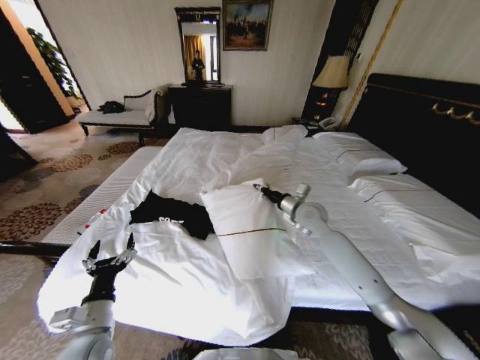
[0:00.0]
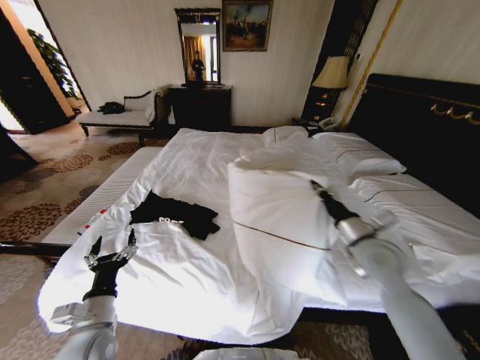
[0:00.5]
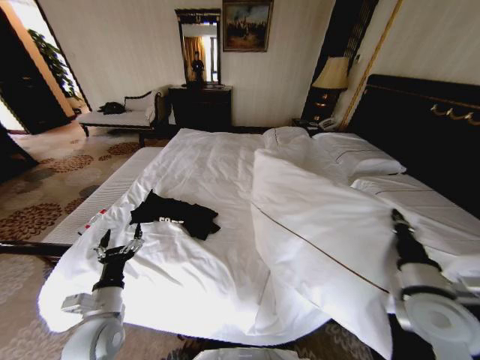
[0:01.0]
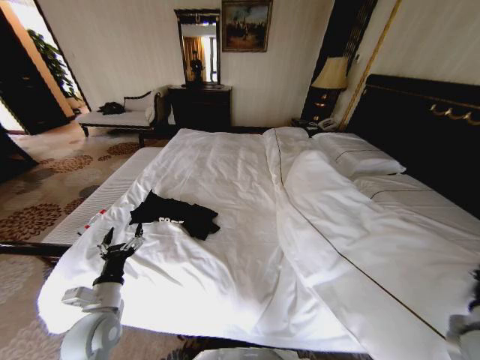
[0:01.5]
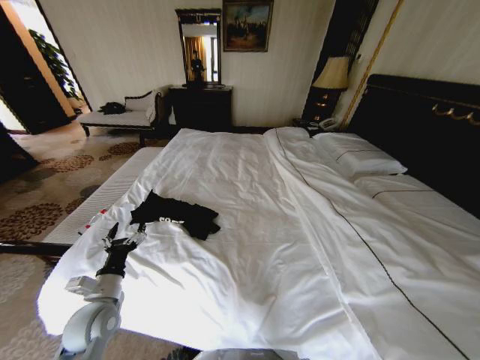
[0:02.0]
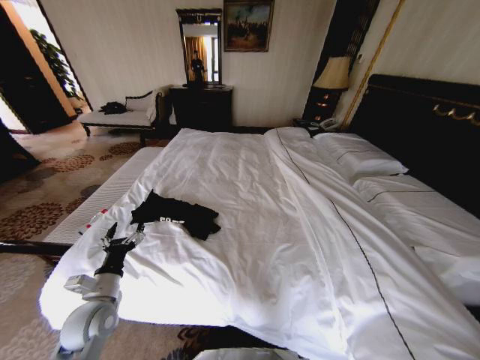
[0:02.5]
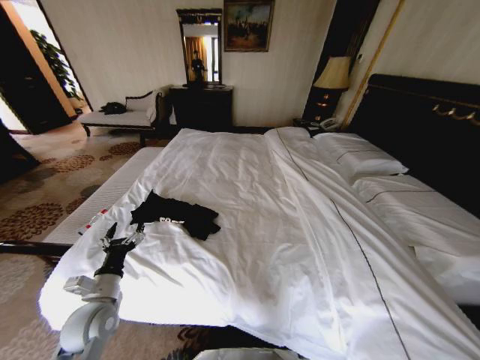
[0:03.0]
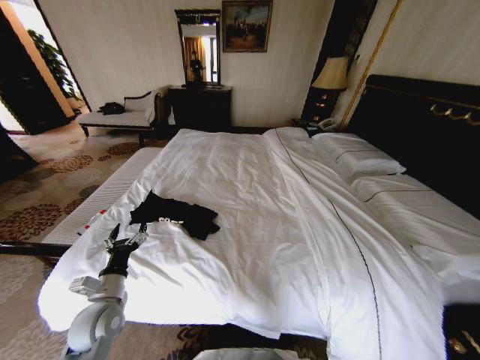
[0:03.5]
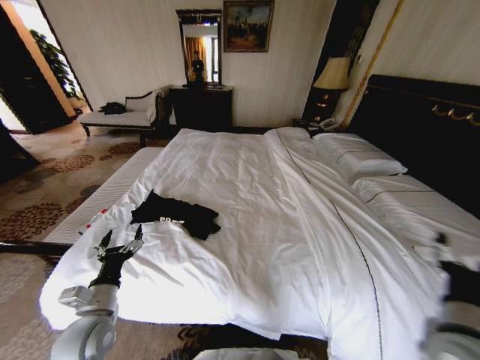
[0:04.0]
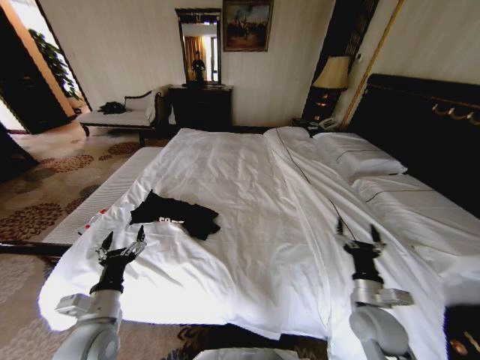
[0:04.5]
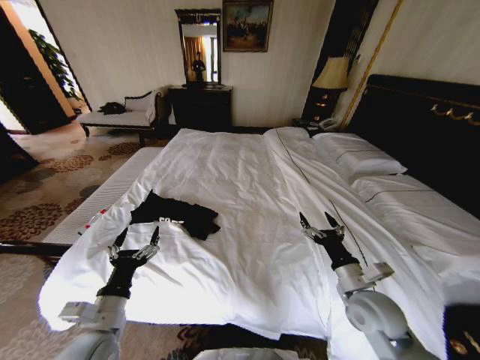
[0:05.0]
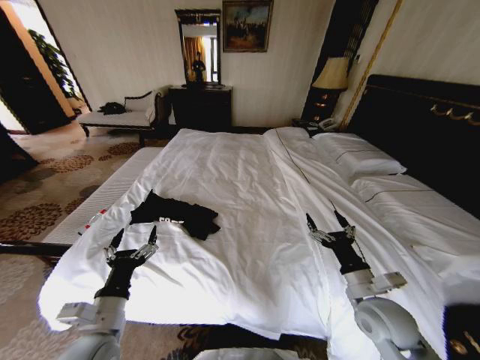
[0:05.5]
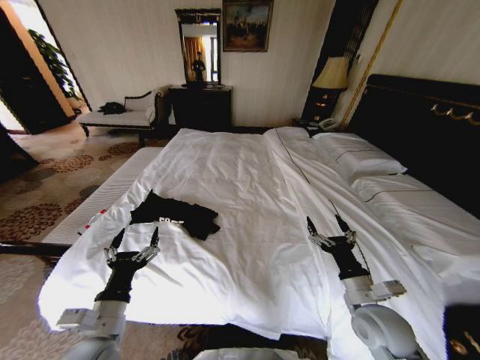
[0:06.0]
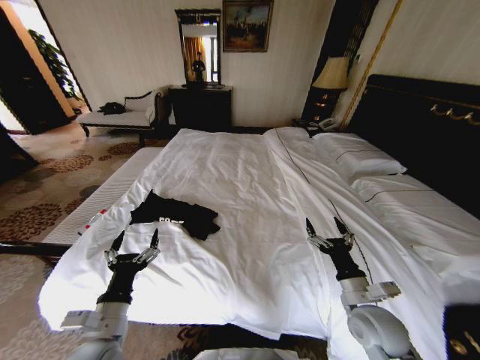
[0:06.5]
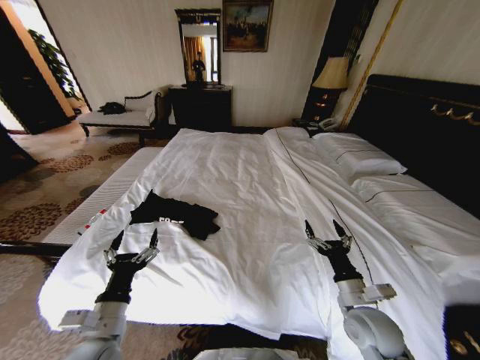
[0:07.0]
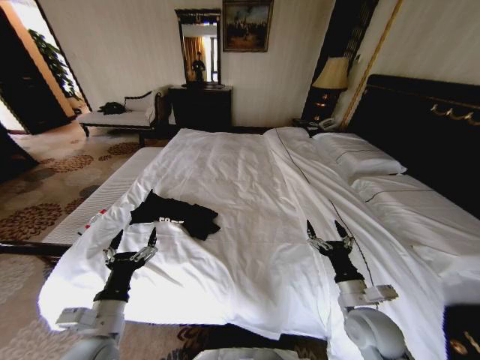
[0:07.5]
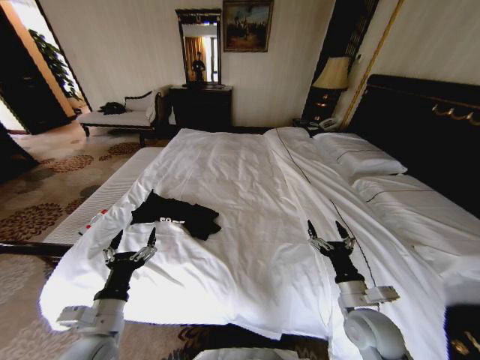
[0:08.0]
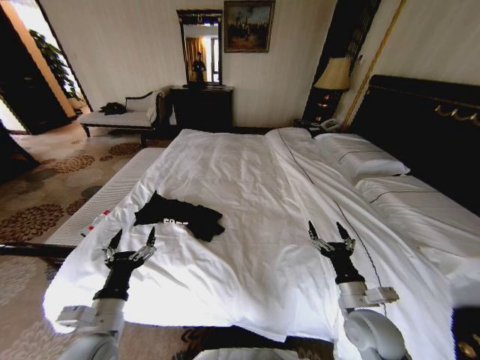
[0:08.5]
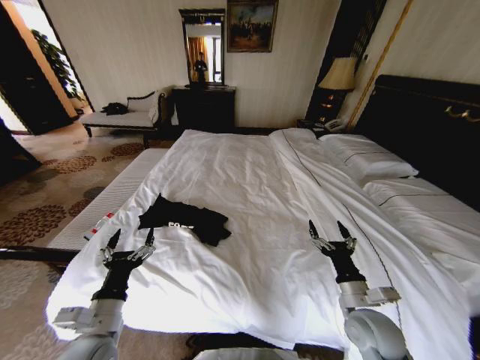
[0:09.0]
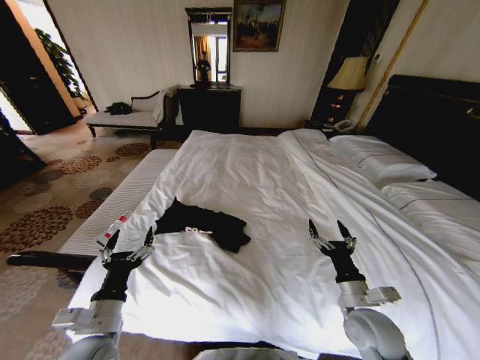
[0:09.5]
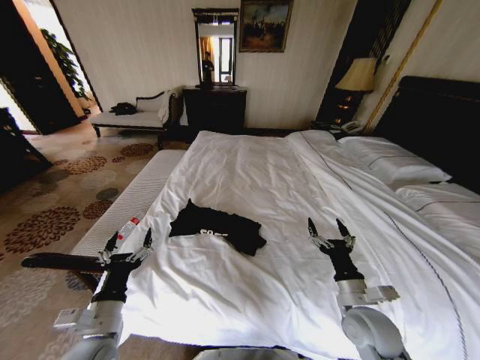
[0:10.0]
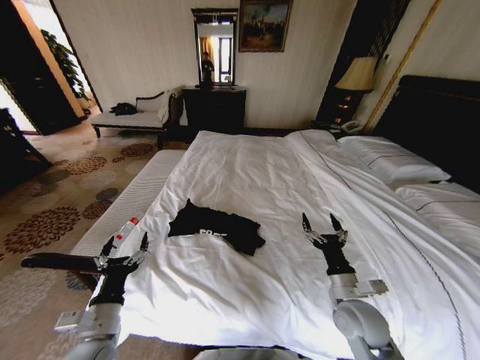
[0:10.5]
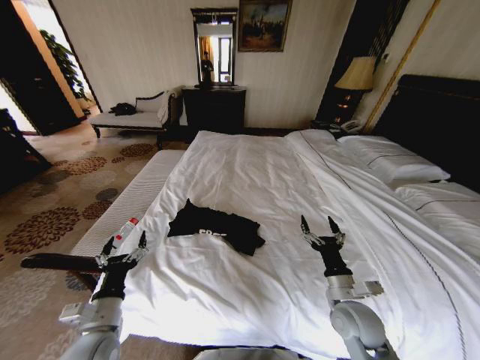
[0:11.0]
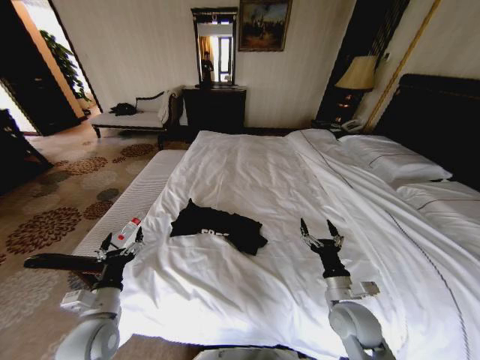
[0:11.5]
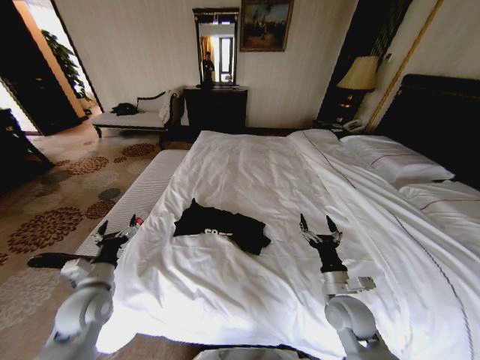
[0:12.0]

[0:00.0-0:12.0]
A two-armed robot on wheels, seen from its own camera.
Task of the whole recording: Fold the clothes on the bed.
0:00.0 to 0:02.0: The left gripper heads forward, covering approximately 5 cm. Meanwhile the right gripper is displaced backward and to the right by approximately 50 cm.
0:02.0 to 0:04.0: The right gripper moves to the left and forward, about 10 cm, and opens its fingers.
0:04.0 to 0:06.0: The right gripper goes about 10 cm downward, forward and to the left. The left gripper is displaced to the right by about 5 cm.
0:06.0 to 0:08.0: The grippers make only small movements.
0:10.0 to 0:12.0: The left gripper travels forward and to the left by about 10 cm.

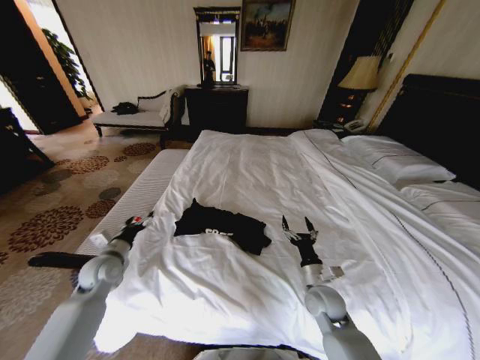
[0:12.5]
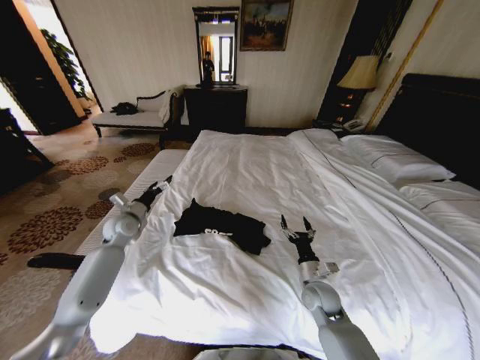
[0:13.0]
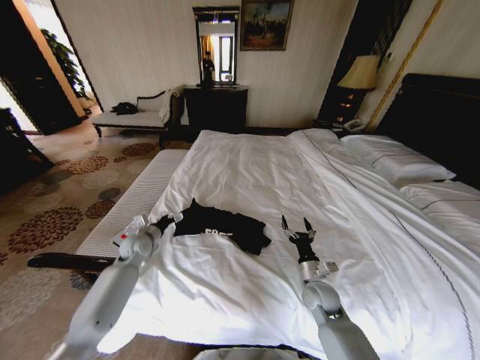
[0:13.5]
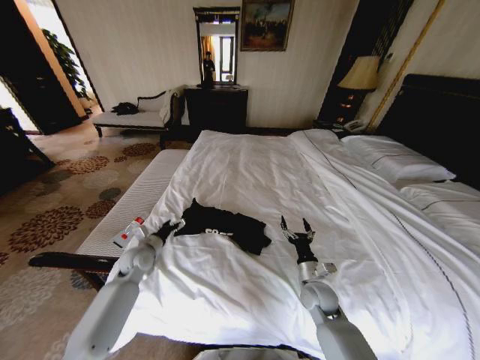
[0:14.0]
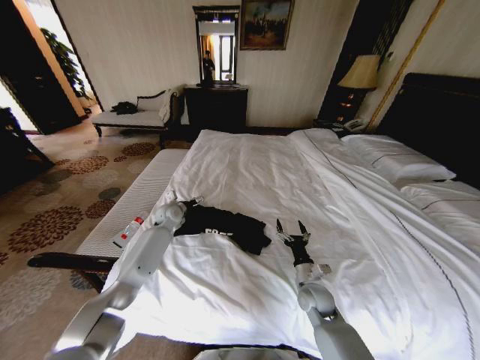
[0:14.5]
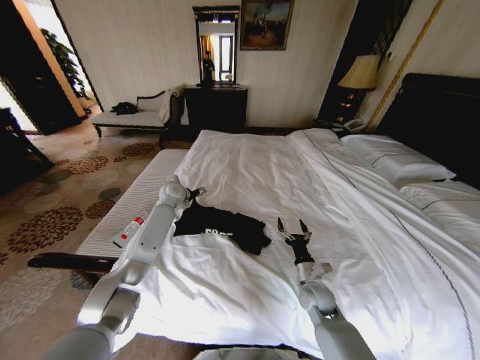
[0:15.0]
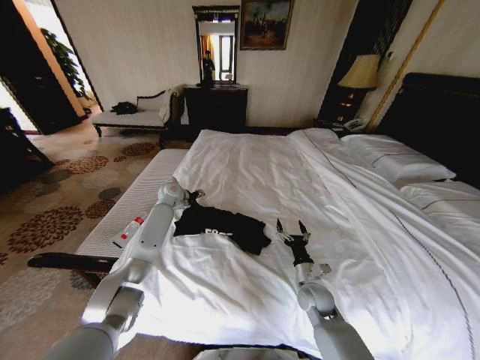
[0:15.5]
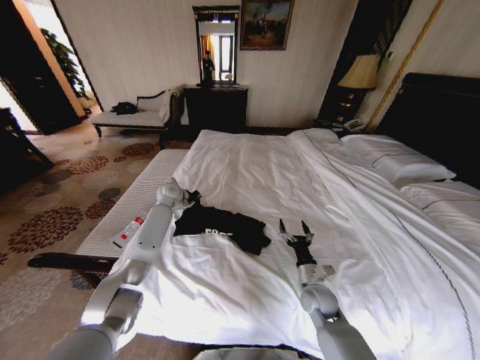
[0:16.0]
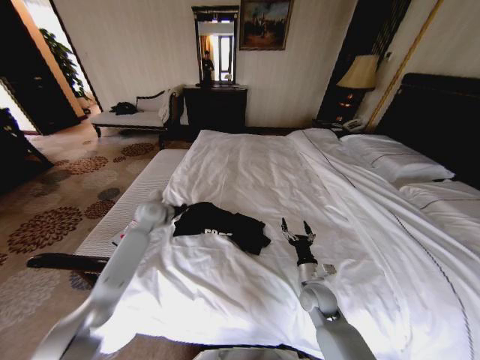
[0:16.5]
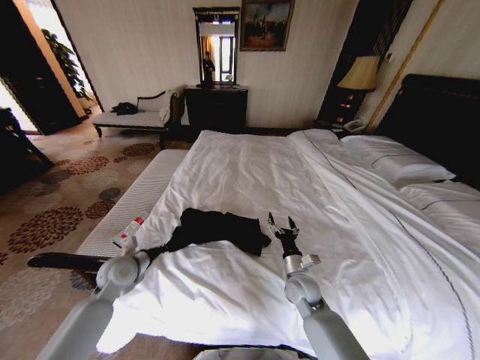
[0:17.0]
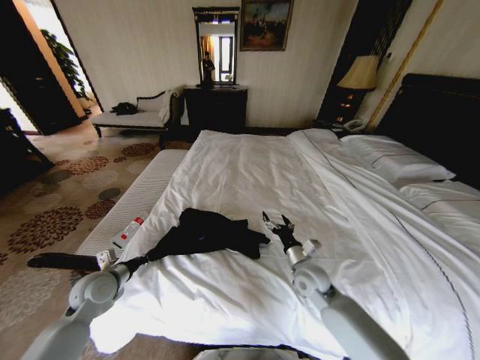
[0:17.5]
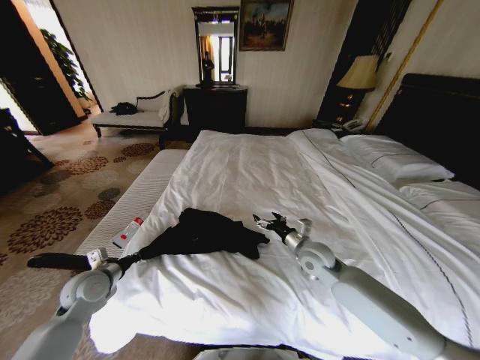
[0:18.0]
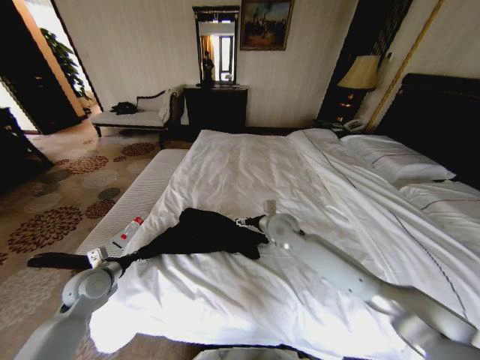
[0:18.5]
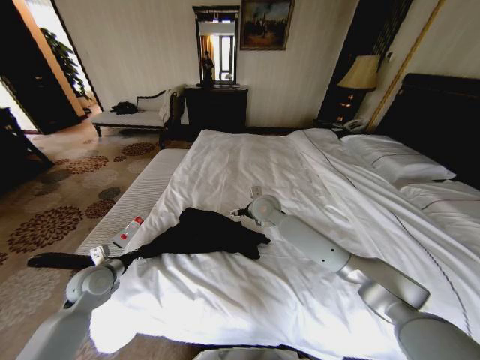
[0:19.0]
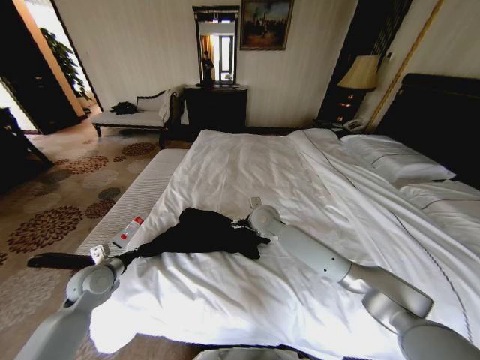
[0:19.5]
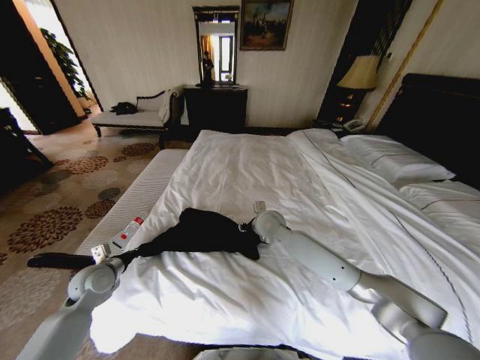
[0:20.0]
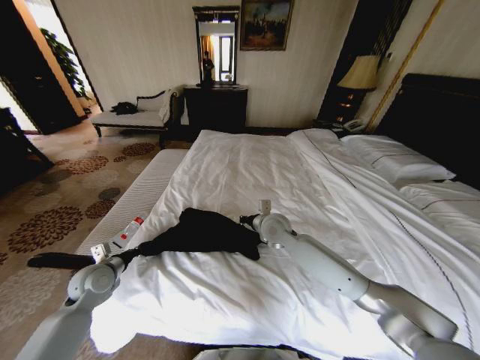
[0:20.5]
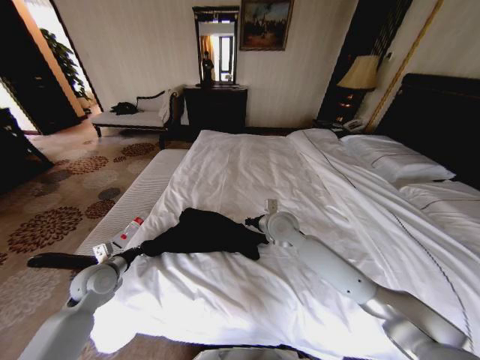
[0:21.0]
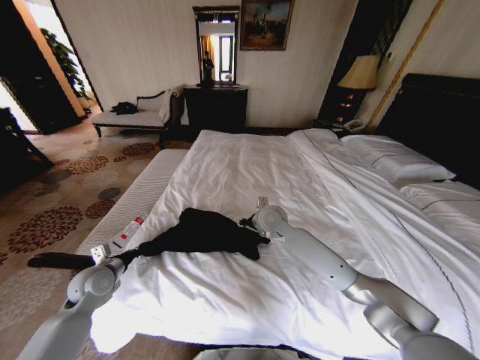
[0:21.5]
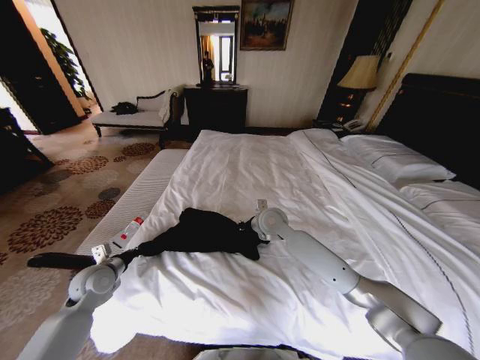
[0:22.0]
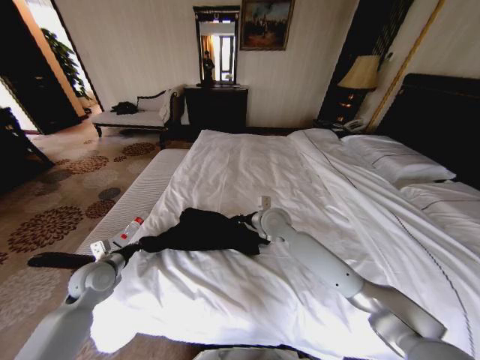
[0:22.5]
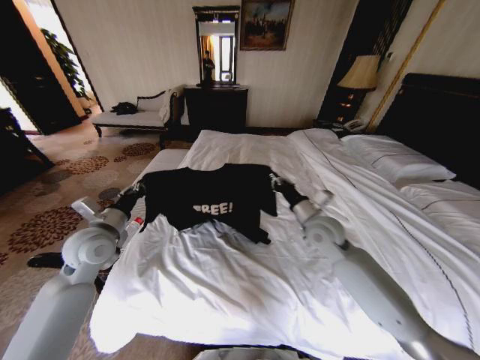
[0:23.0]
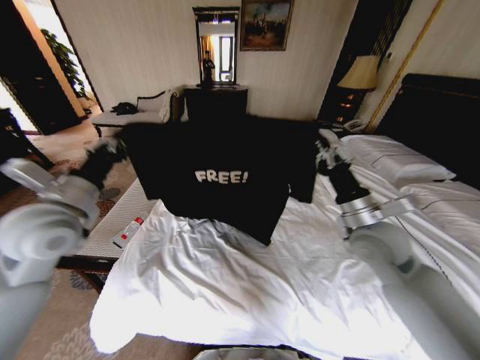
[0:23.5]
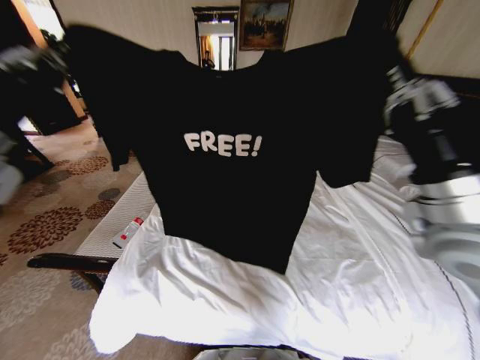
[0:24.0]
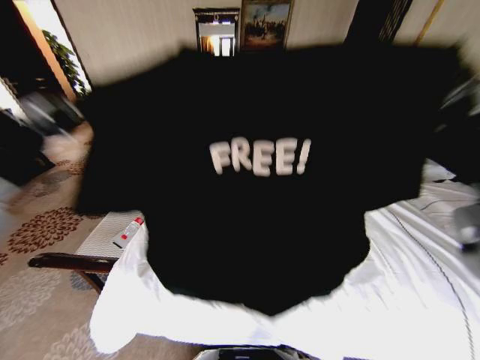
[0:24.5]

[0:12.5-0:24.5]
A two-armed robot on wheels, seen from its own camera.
Task of the whole recording: Fold the clothes on the bed.
0:12.5 to 0:14.5: The left gripper moves forward and backward over some 20 cm, changing direction 2 times.
0:14.5 to 0:16.5: The left gripper shifts roughly 5 cm upward, and closes up.
0:16.5 to 0:18.5: The right gripper travels upward, forward and to the left by approximately 25 cm; the left gripper is displaced backward and to the left by some 25 cm.
0:18.5 to 0:20.5: The right gripper closes.
0:20.5 to 0:22.5: The grippers move only a little.
0:22.5 to 0:24.5: The right gripper moves backward, upward and to the right, roughly 35 cm. The left gripper heads upward, covering approximately 30 cm.

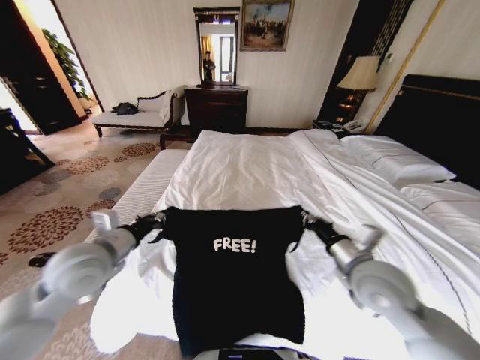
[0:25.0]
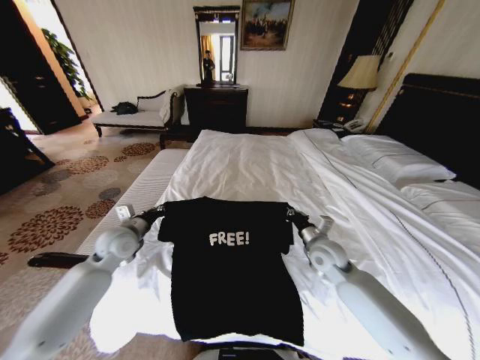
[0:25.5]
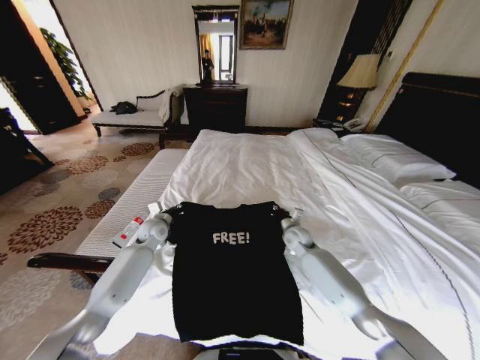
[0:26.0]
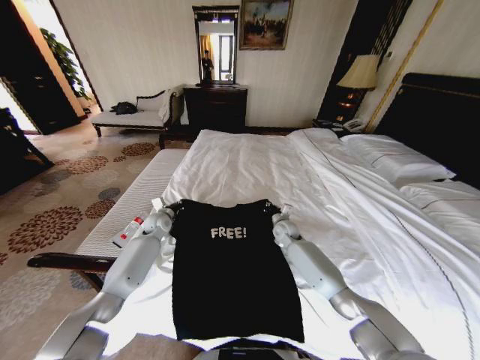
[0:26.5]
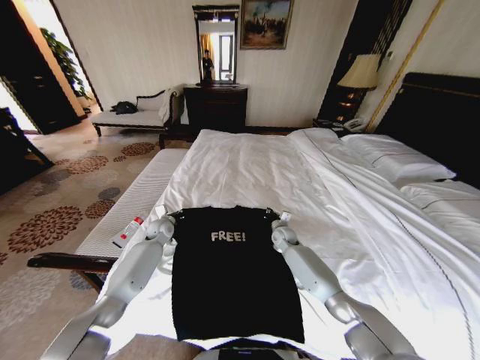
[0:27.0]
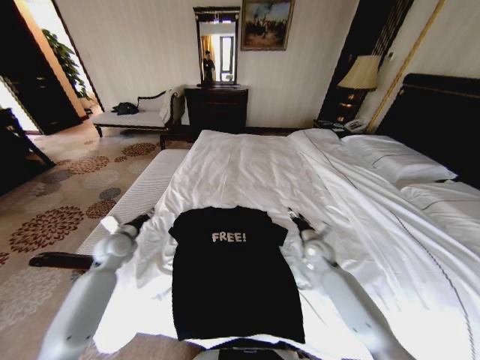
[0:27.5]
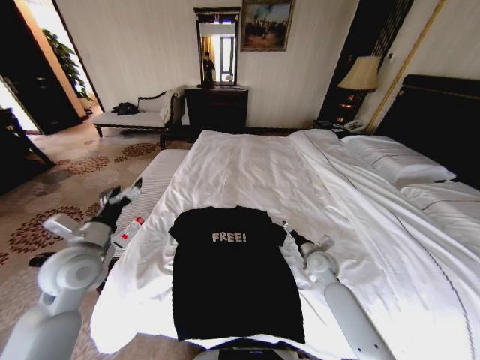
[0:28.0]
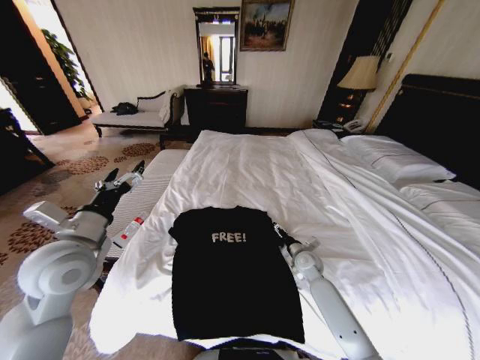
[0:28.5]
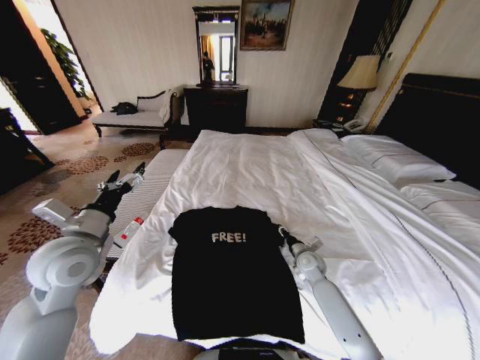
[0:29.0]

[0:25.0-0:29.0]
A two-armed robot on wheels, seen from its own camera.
Task of the whole recording: Fold the clothes on the bed.
0:25.0 to 0:27.0: Both grippers travel together forward and downward, approximately 35 cm.
0:27.0 to 0:29.0: The left gripper goes roughly 30 cm backward and upward, and opens its fingers. Meanwhile the right gripper is displaced backward and to the right by about 15 cm, and opens up.
